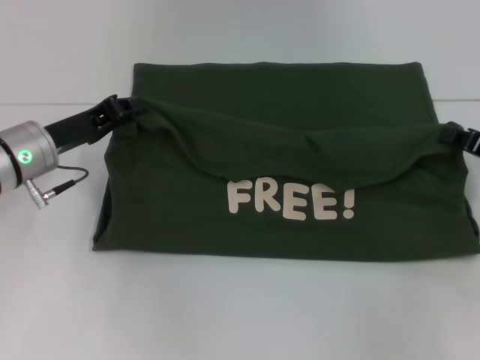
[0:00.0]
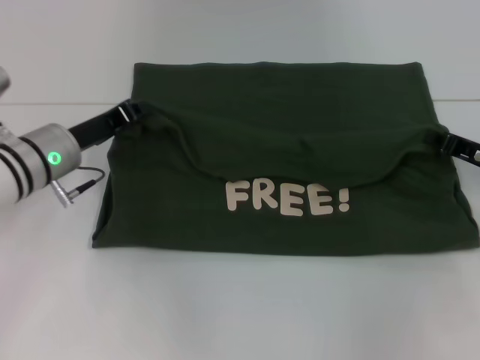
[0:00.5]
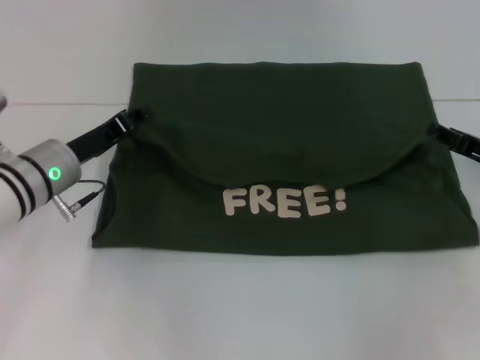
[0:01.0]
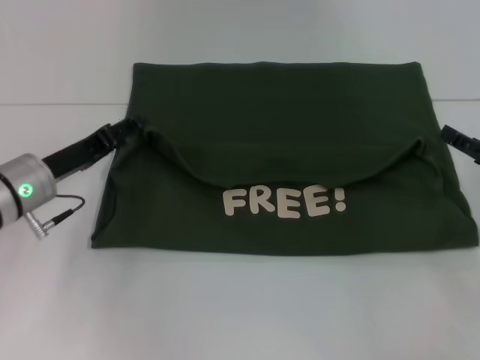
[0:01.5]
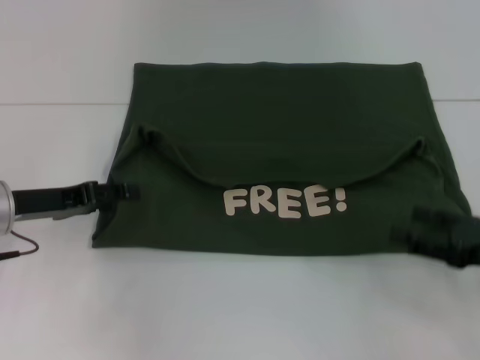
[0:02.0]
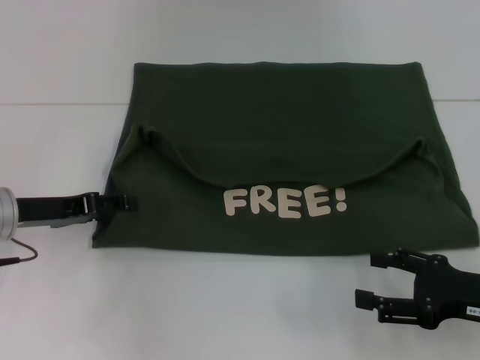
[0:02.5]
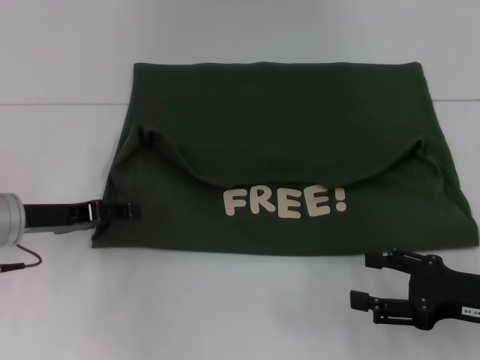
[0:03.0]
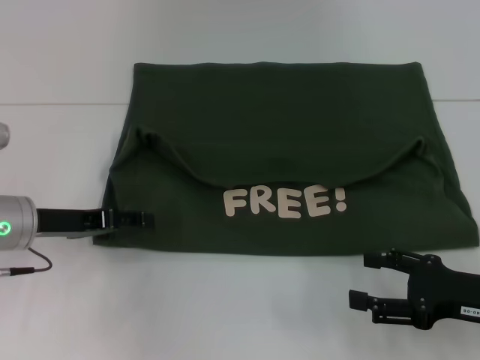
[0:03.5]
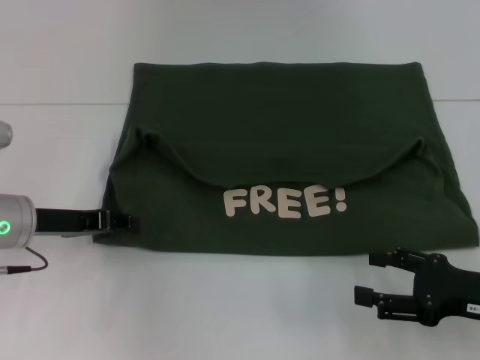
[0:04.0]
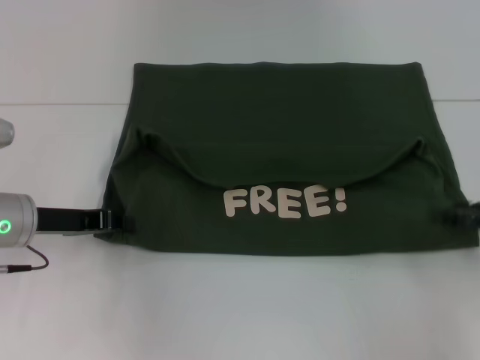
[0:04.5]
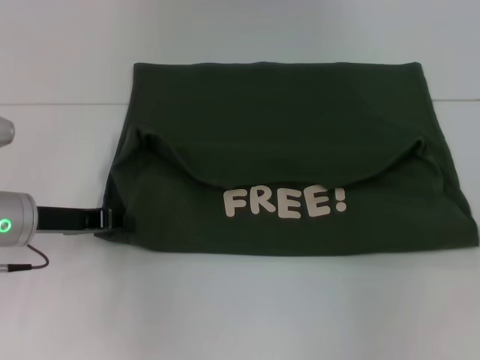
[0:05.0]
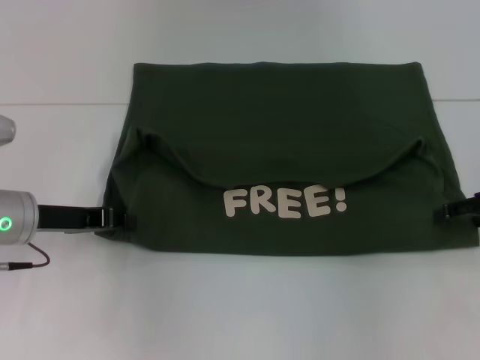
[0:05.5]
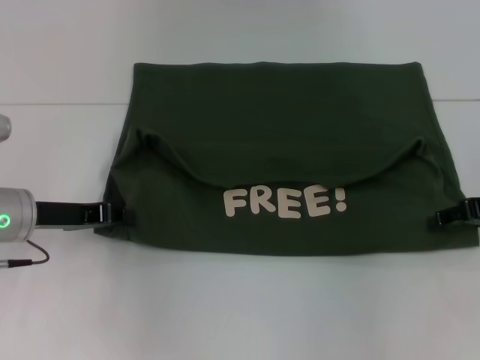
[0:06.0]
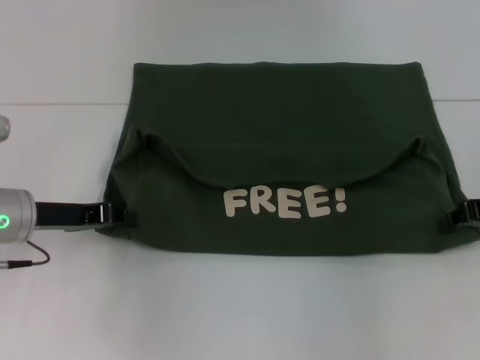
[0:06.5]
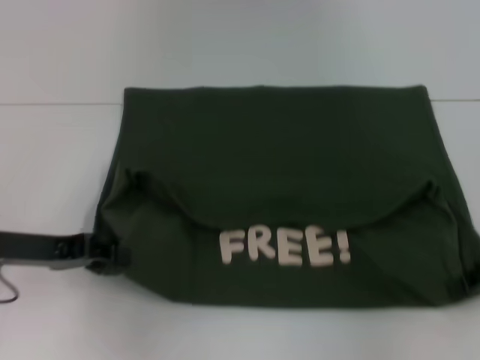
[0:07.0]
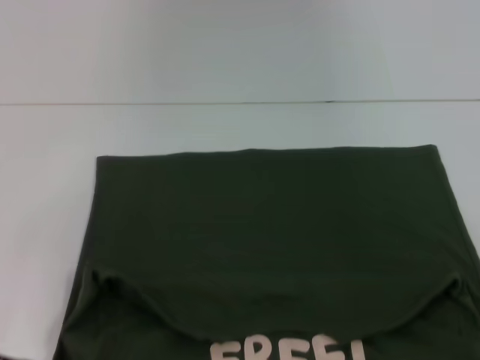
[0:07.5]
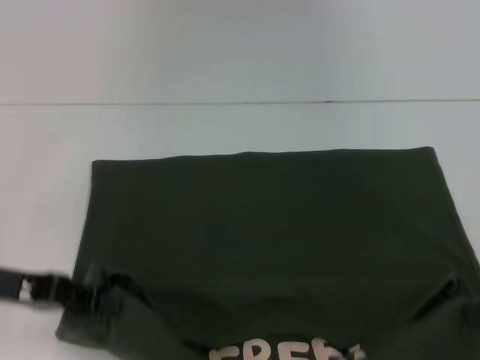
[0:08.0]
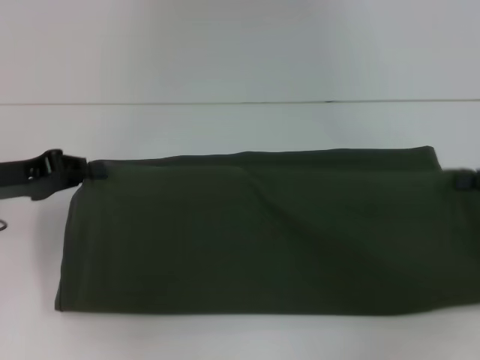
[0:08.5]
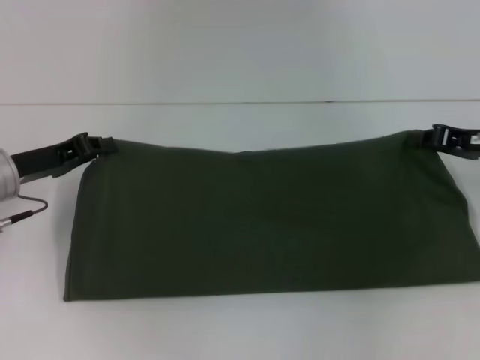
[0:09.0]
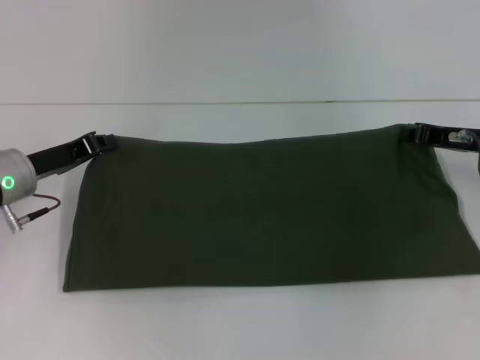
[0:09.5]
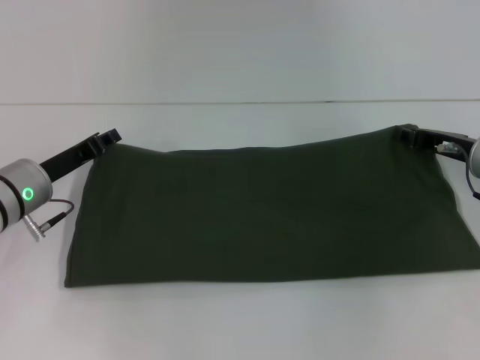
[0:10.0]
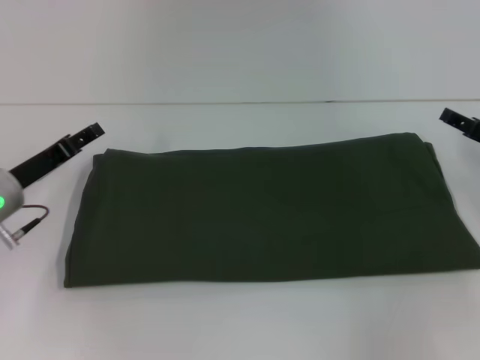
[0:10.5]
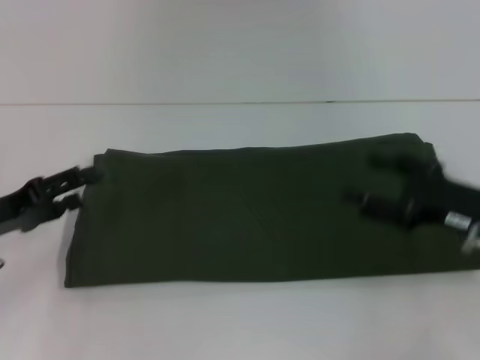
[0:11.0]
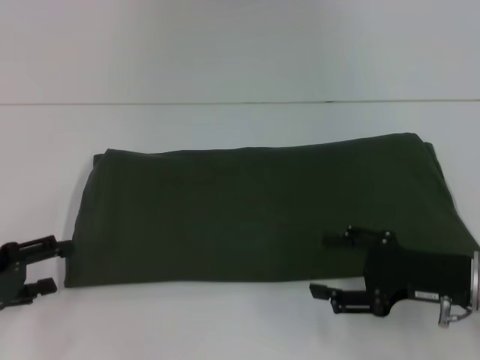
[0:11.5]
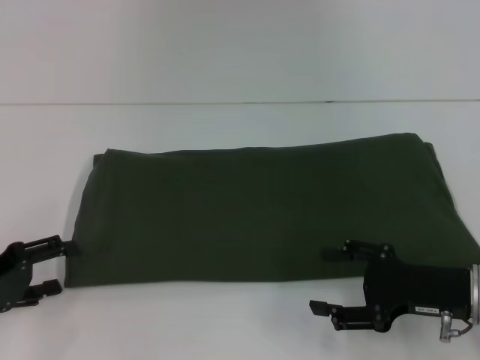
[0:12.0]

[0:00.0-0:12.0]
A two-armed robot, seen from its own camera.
Step, 0:01.5 to 0:07.5: Pull the clothes with your left hand.
Step, 0:01.5 to 0:07.5: Pull the clothes with your right hand.
Step, 0:08.0 to 0:10.0: Fold the clothes with your right hand.
0:00.0 to 0:02.0: The right gripper goes approximately 10 cm backward, and opens up. The left gripper moves about 5 cm, and opens its fingers.
0:02.0 to 0:04.0: The grippers stay close to where they were, moving slightly.
0:04.0 to 0:06.0: The left gripper closes its fingers. The right gripper is displaced forward and upward by approximately 15 cm.
0:06.0 to 0:08.0: Both grippers travel together backward, about 10 cm. The right gripper closes up.
0:08.0 to 0:10.0: The left gripper heads forward and downward, covering some 10 cm, while the right gripper travels forward and to the left by approximately 15 cm.
0:10.0 to 0:12.0: The right gripper is displaced backward by some 15 cm, and opens its fingers. The left gripper travels backward and to the left by roughly 15 cm, and opens up.

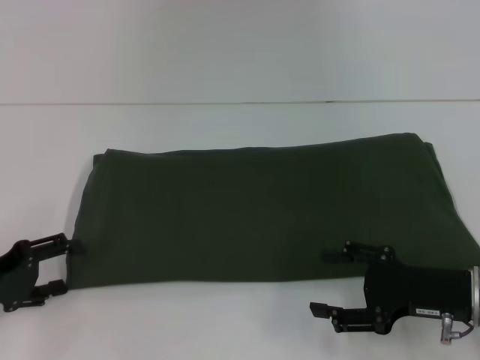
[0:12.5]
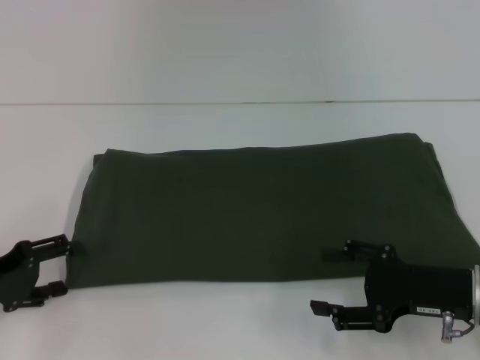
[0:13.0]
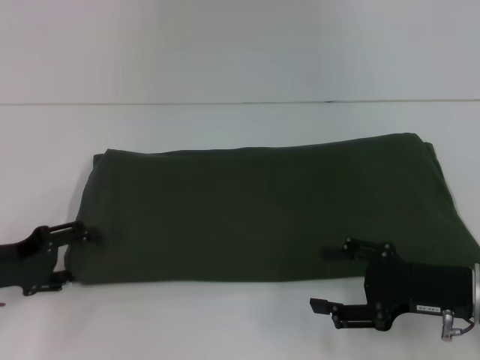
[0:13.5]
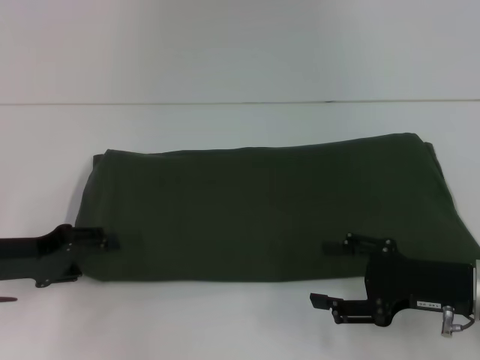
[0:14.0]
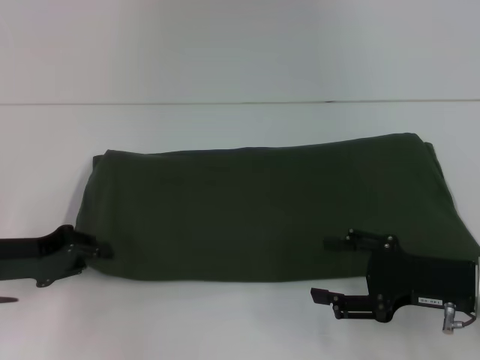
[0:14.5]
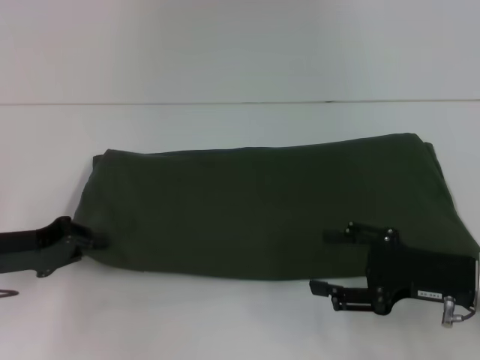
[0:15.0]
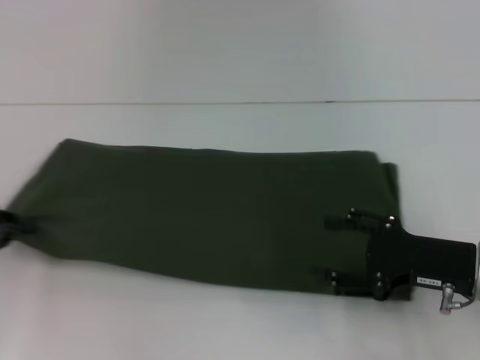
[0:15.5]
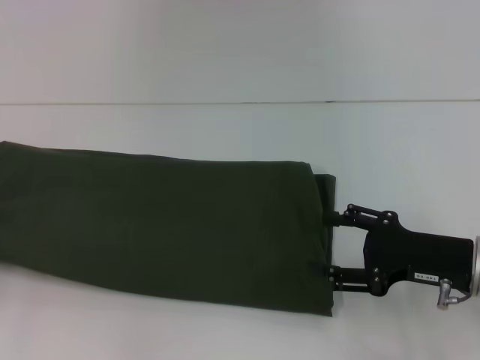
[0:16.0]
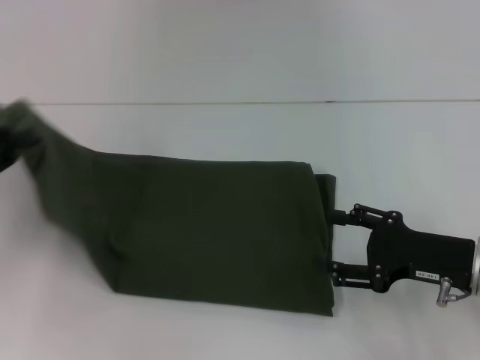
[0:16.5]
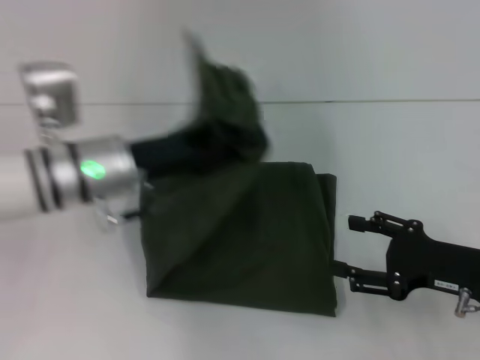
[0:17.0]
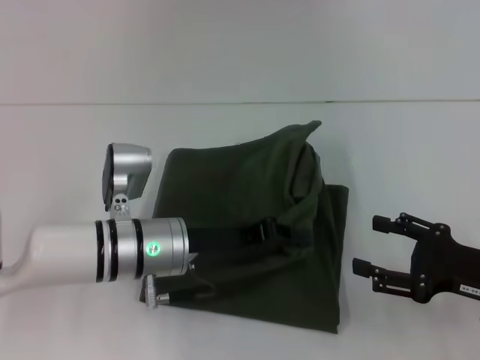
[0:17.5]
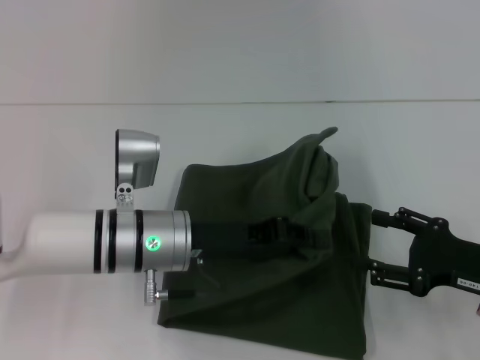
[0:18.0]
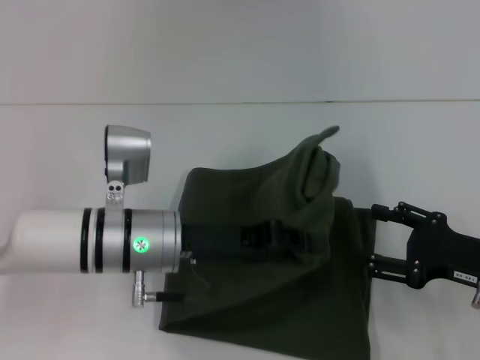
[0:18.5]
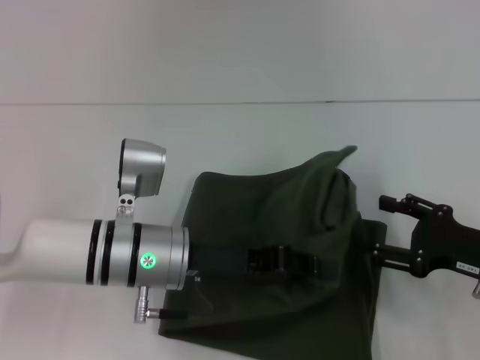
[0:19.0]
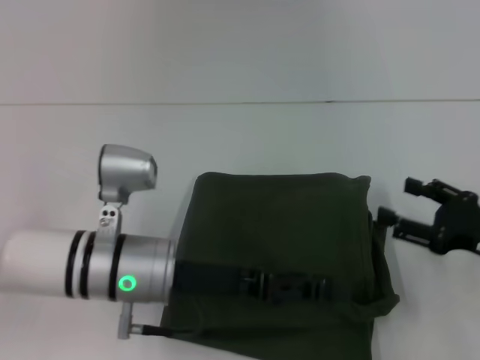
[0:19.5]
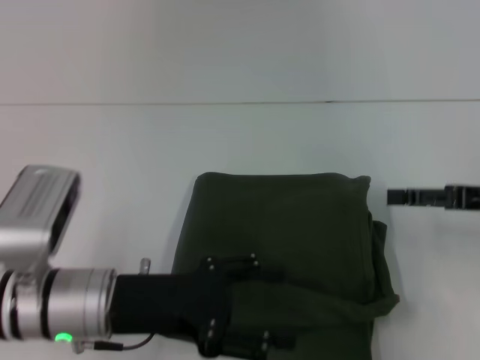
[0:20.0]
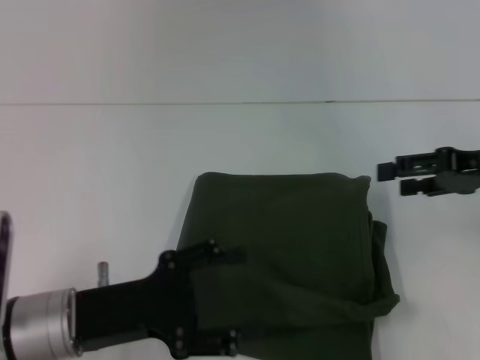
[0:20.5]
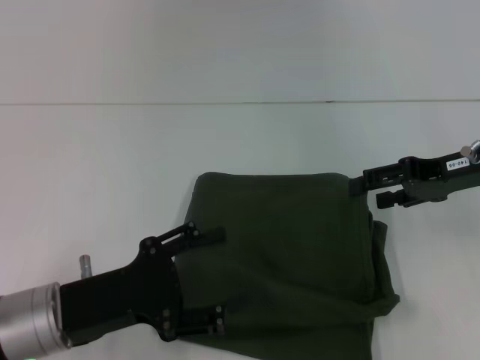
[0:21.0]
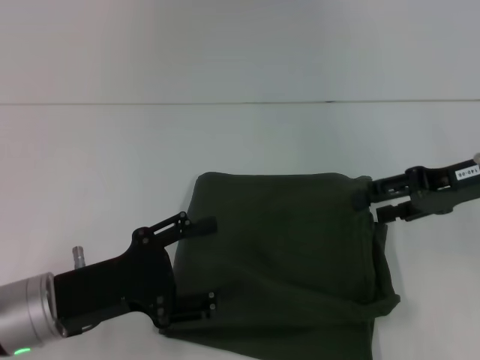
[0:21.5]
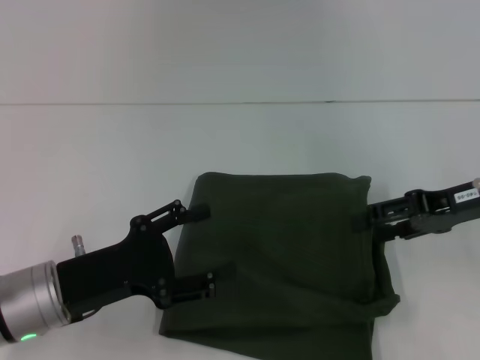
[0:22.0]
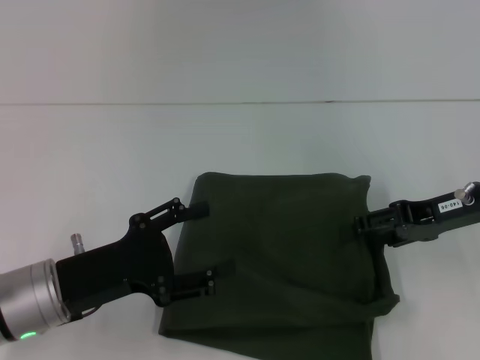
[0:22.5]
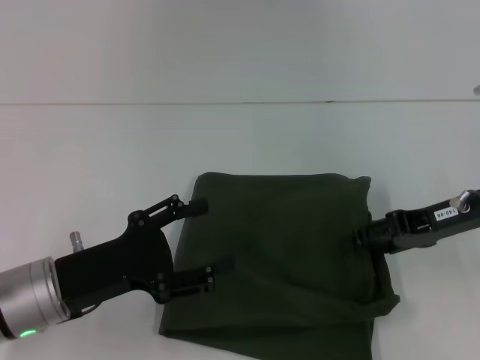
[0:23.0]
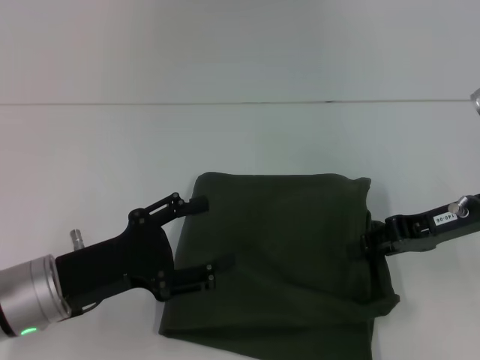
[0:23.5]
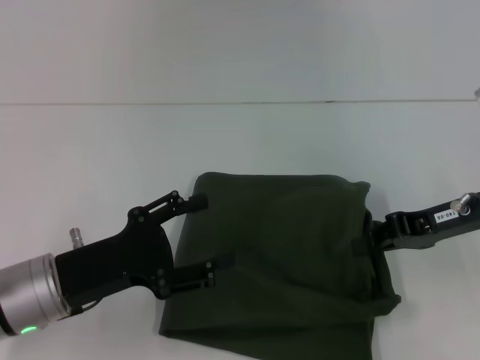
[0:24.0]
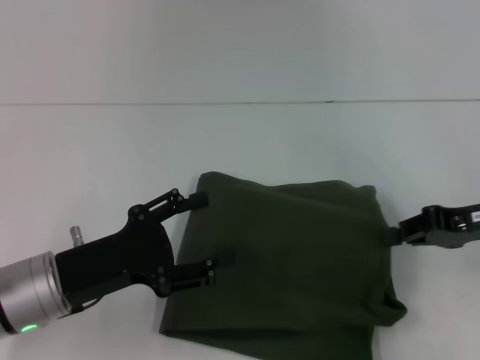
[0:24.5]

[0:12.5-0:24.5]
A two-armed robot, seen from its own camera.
Step, 0:12.5 to 0:19.0: Fold the clothes with your left hand.
0:12.5 to 0:14.5: The left gripper closes.
0:14.5 to 0:16.5: The left gripper travels upward by approximately 5 cm, travels to the left and back again, some 10 cm each way, and closes.
0:16.5 to 0:18.5: The left gripper travels to the right by some 20 cm.
0:18.5 to 0:20.5: The right gripper heads upward and forward, covering some 15 cm; the left gripper travels backward and to the left by about 10 cm, and opens.
0:20.5 to 0:22.5: The grippers move only a little.
0:22.5 to 0:24.5: The right gripper closes its fingers.

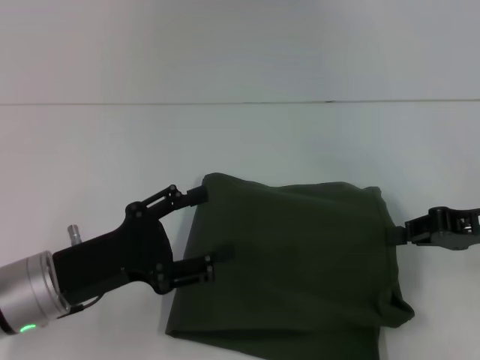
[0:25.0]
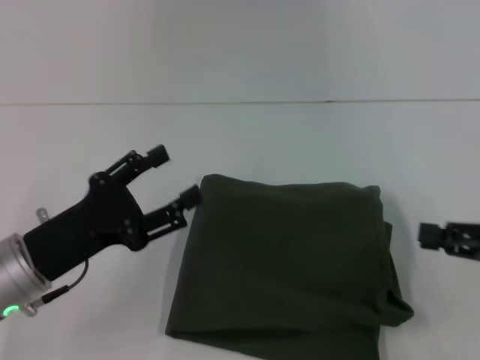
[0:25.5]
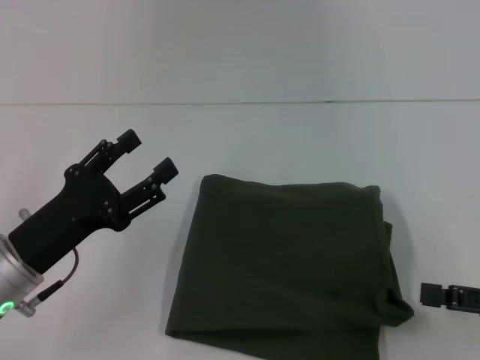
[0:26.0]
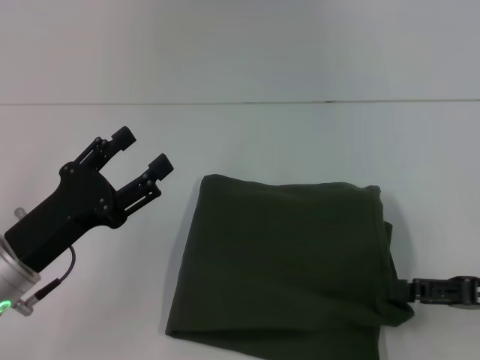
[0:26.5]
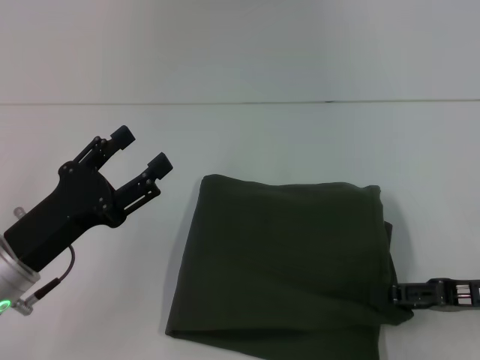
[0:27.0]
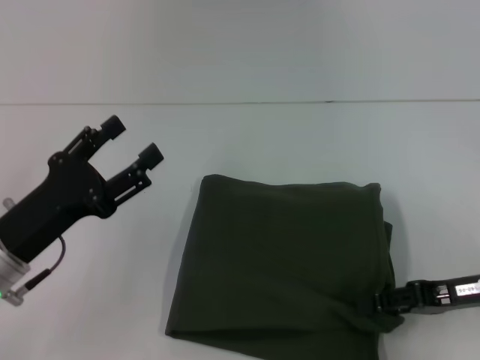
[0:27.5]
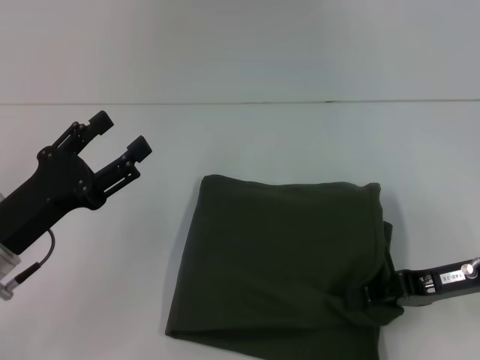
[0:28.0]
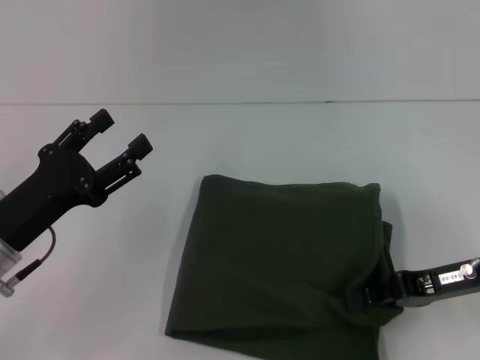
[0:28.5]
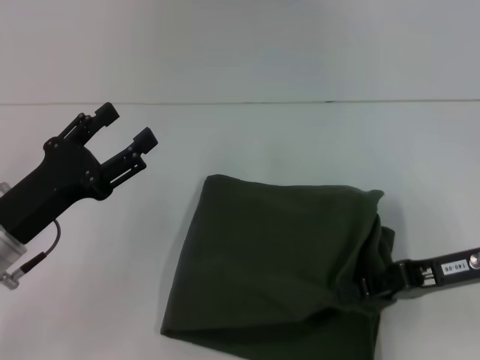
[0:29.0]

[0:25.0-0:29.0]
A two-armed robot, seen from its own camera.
0:25.0 to 0:27.0: The right gripper goes some 5 cm backward, and opens up.
0:27.0 to 0:29.0: The right gripper changes place by about 5 cm, and closes up.
